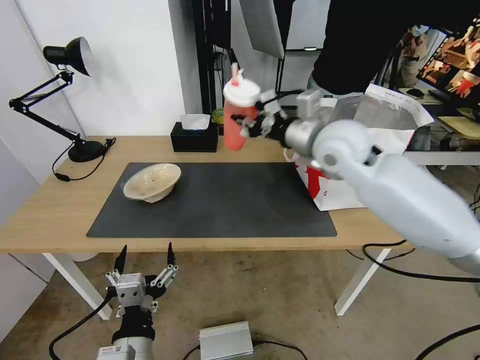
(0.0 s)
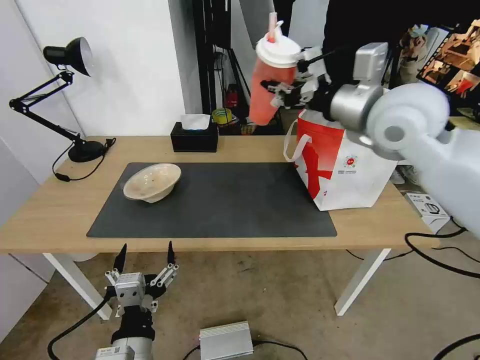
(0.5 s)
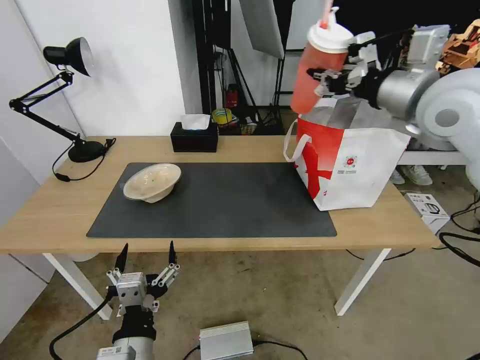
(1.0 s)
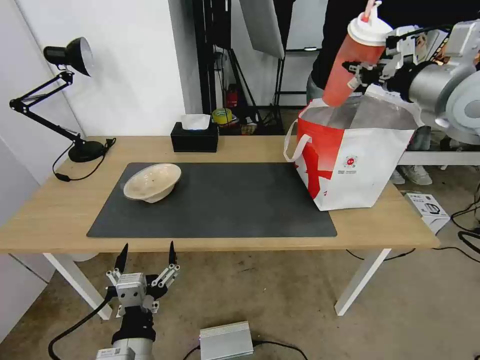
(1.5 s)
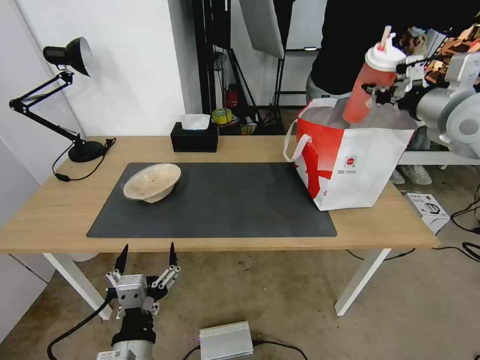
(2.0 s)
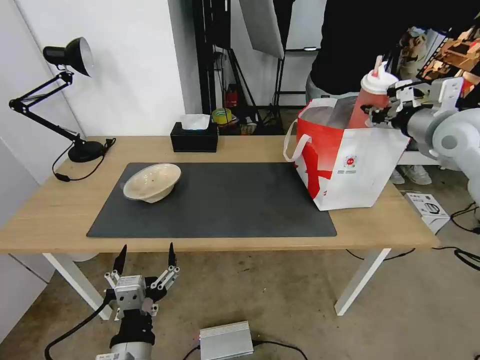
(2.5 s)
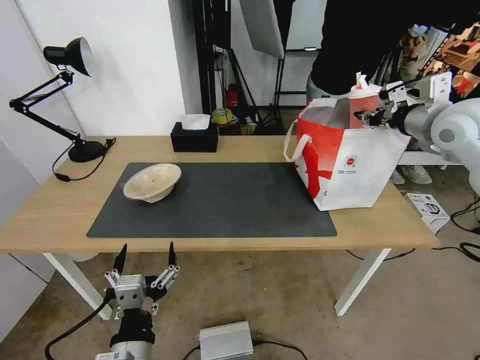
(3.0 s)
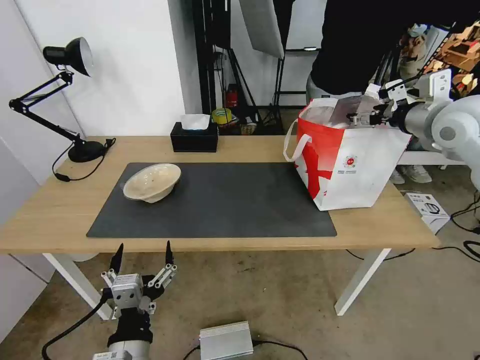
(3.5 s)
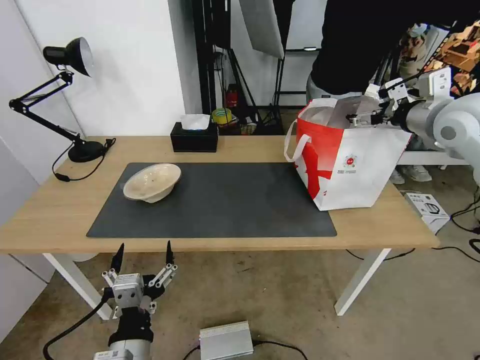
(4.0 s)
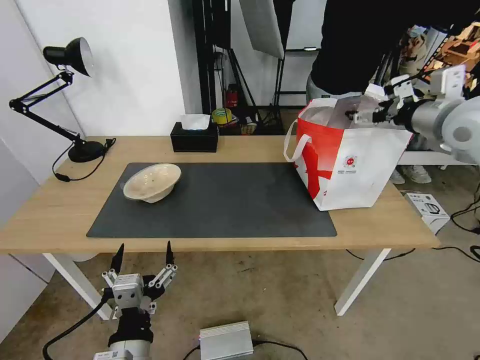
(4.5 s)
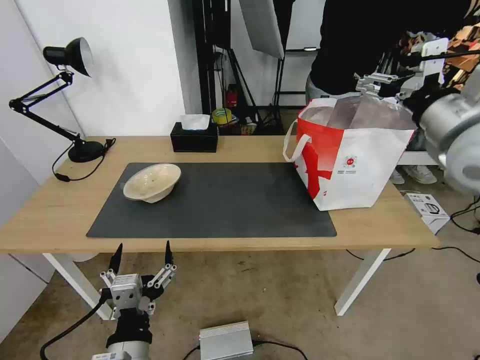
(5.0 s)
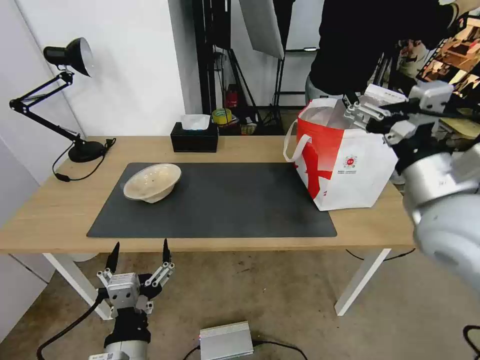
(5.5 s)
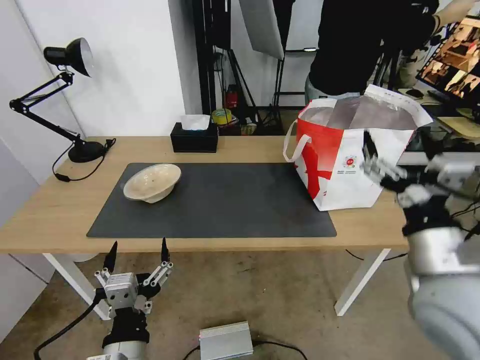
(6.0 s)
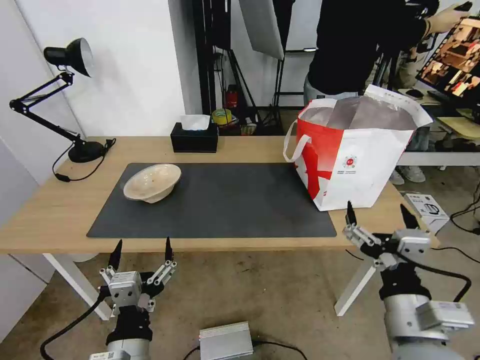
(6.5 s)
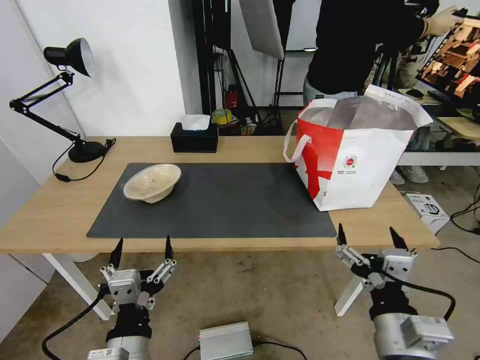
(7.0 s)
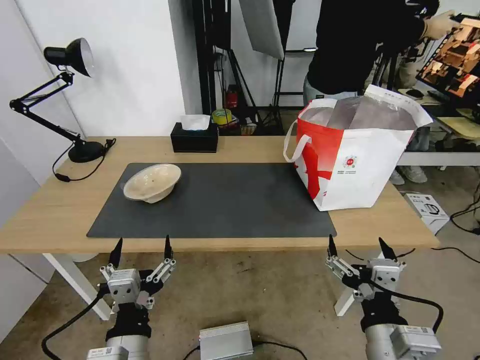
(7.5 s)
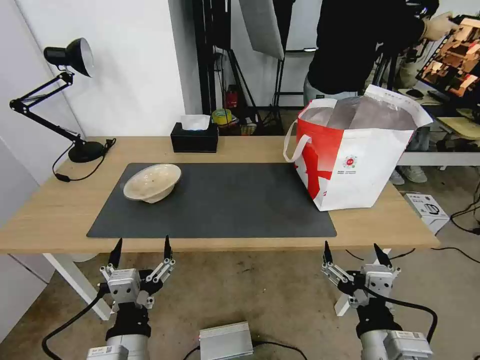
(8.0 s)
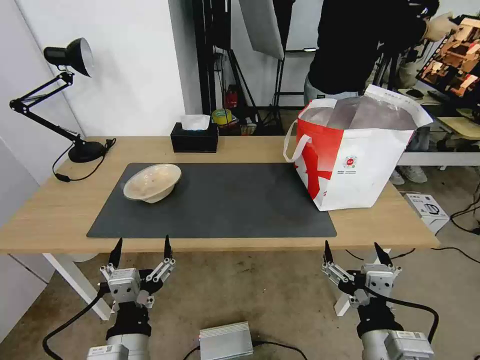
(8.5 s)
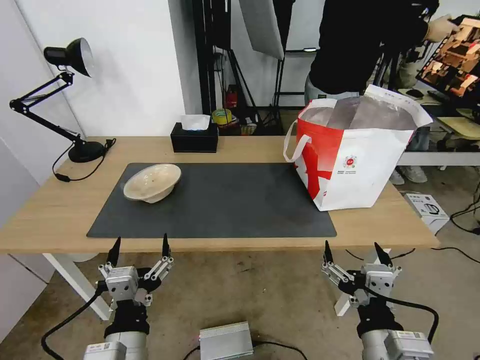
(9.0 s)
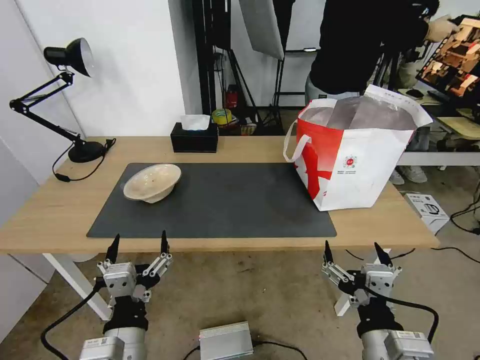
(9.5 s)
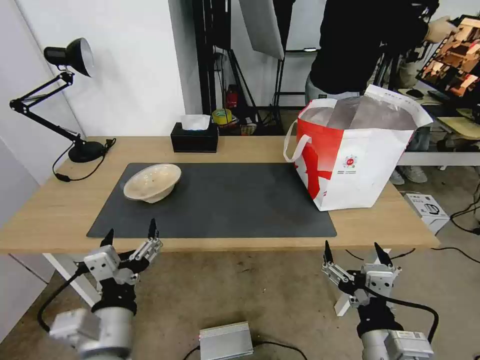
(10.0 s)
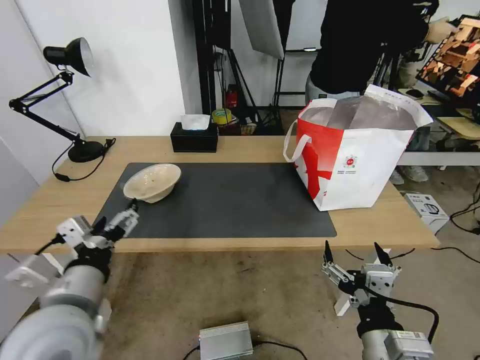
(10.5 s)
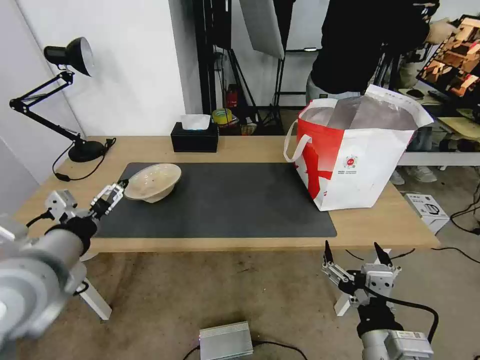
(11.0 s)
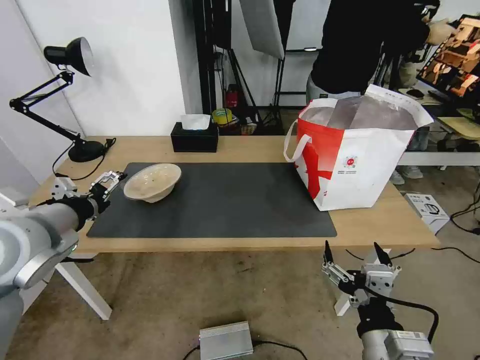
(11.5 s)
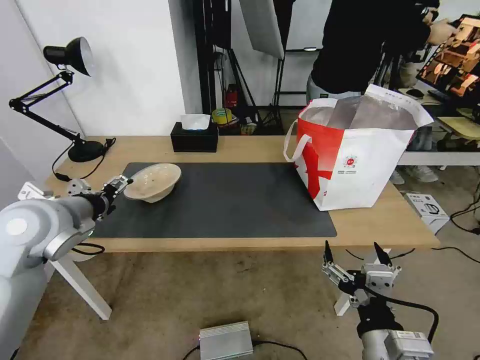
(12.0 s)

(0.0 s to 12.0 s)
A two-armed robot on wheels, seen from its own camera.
Task of the whole recording: Pick up the trash from the table and place it into the takeout bag.
0.0 s - 2.0 s: The right gripper heads to the right, covering some 20 cm.
2.0 s - 4.0 s: The right gripper opens.
4.0 s - 6.0 s: The right gripper travels backward, downward and to the left by approximately 30 cm.
6.0 s - 8.0 s: The right gripper moves backward, downward and to the left, some 15 cm.
8.0 s - 10.0 s: The left gripper moves about 5 cm.
10.0 s - 12.0 s: The left gripper goes approximately 25 cm forward, to the left and upward.

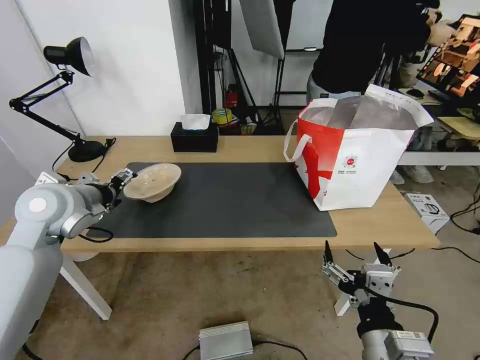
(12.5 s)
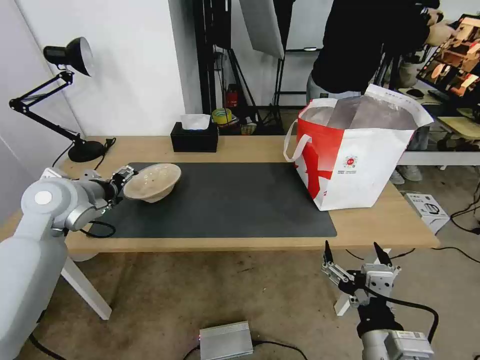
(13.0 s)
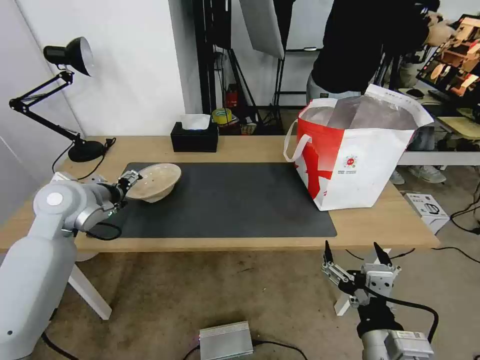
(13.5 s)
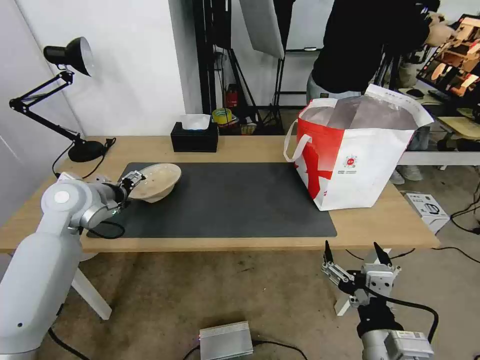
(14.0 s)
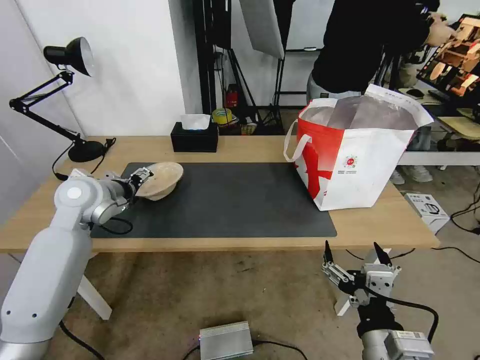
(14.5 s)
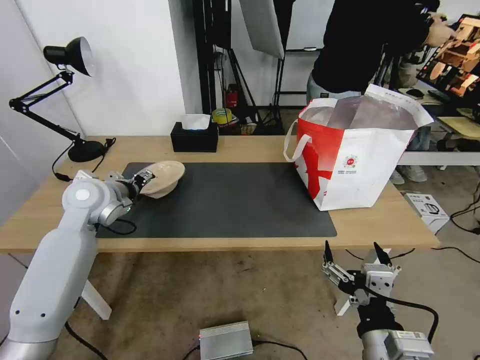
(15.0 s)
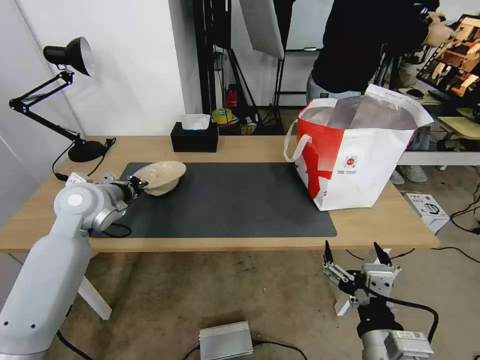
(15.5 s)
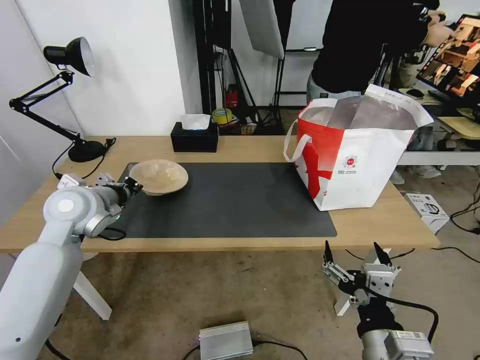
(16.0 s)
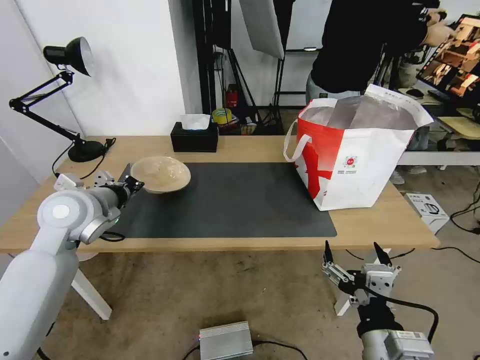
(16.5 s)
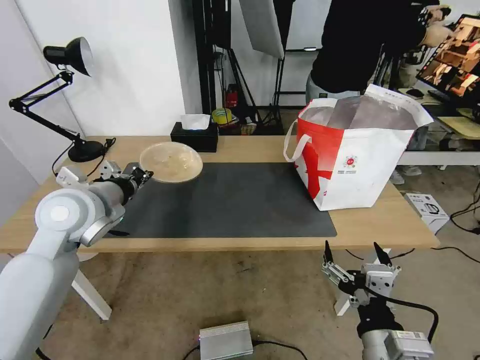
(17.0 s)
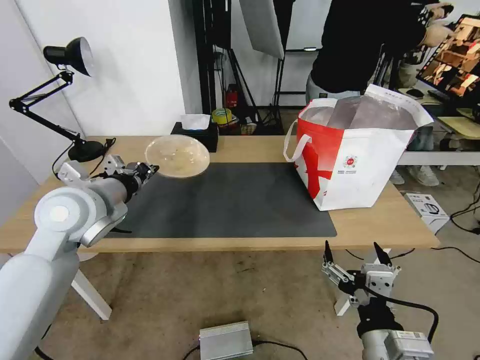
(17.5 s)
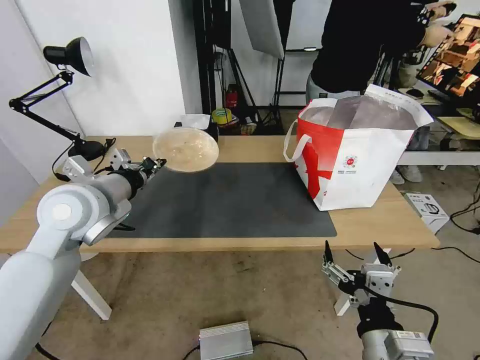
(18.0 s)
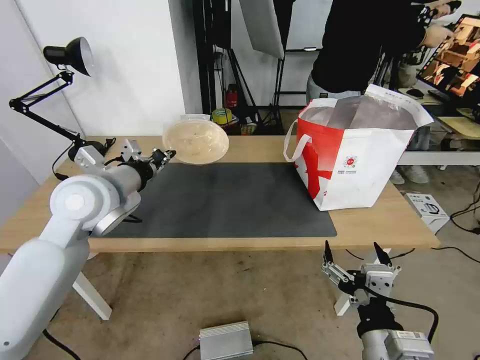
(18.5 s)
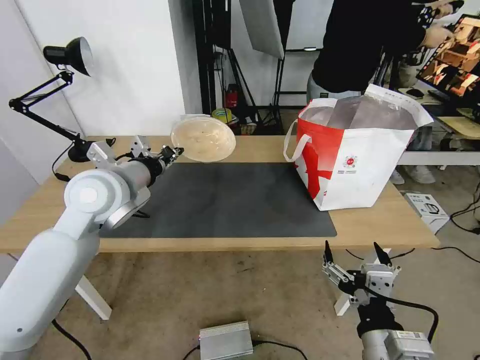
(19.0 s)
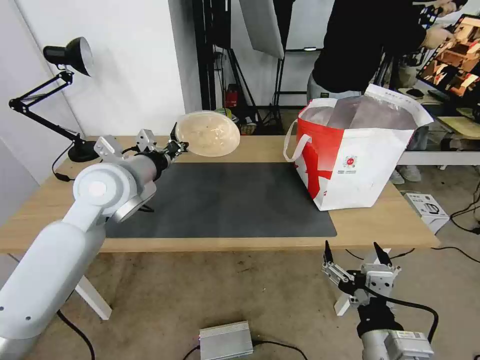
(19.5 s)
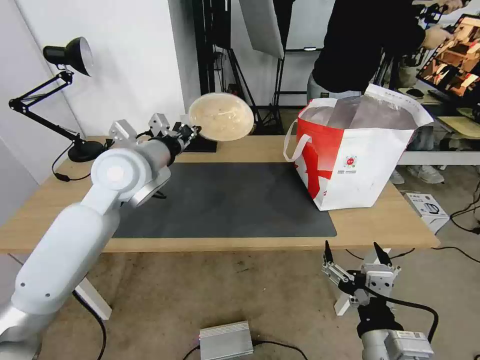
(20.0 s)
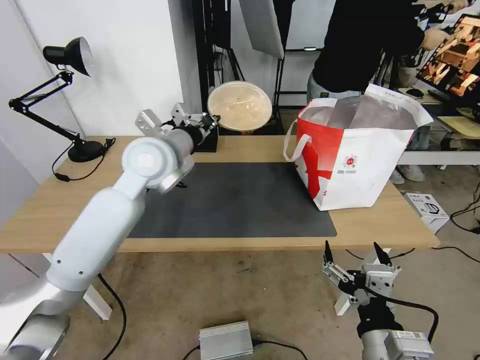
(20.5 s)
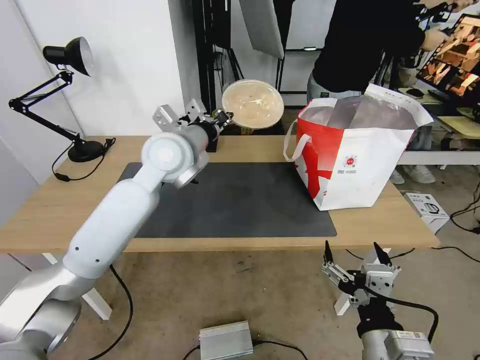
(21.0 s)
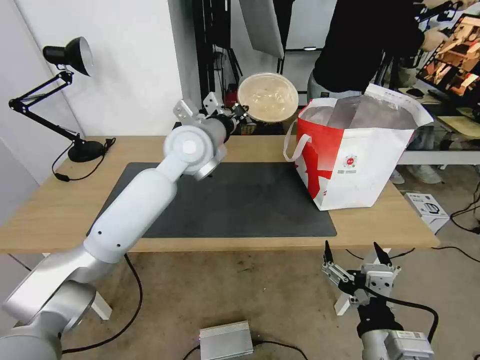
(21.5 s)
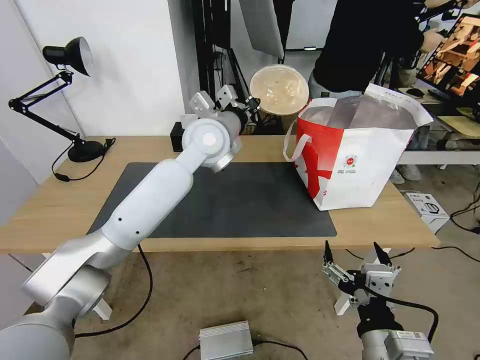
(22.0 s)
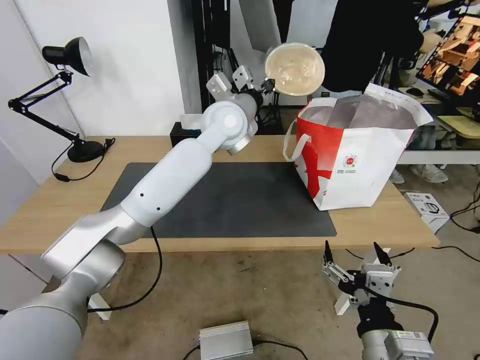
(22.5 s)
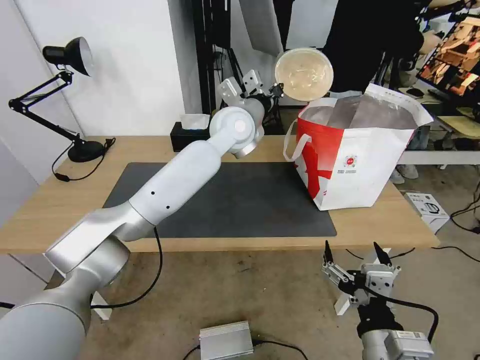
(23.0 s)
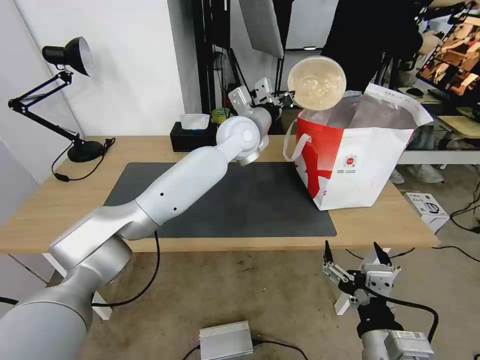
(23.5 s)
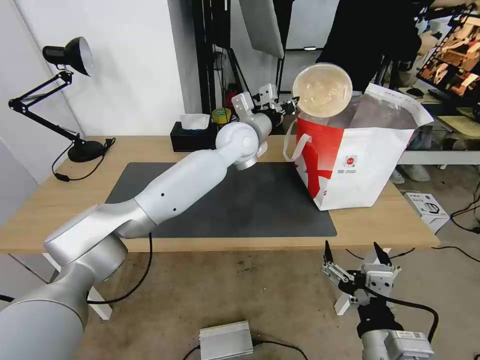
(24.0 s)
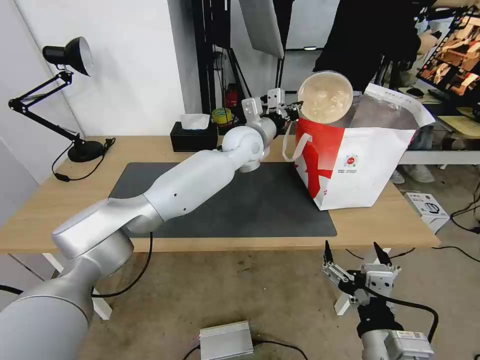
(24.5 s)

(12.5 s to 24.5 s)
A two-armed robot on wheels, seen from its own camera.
Task of the whole recording: Pick up the trash from the table and place it into the takeout bag.
12.5 s - 14.5 s: The left gripper shifts some 5 cm forward.
14.5 s - 16.5 s: The left gripper moves backward, about 5 cm, and closes up.
16.5 s - 18.5 s: The left gripper moves to the right, approximately 5 cm.
18.5 s - 20.5 s: The left gripper heads to the right and forward, covering some 10 cm.
20.5 s - 22.5 s: The left gripper moves to the right and forward, about 15 cm.
22.5 s - 24.5 s: The left gripper travels downward by roughly 5 cm.

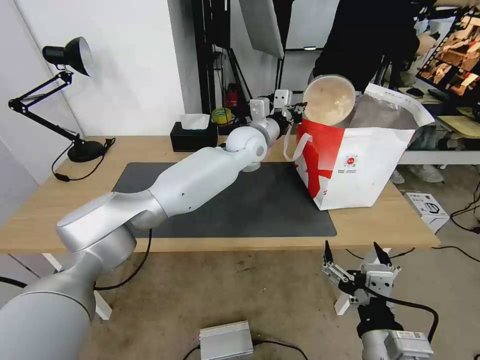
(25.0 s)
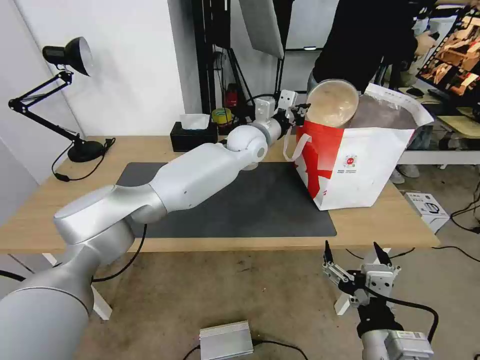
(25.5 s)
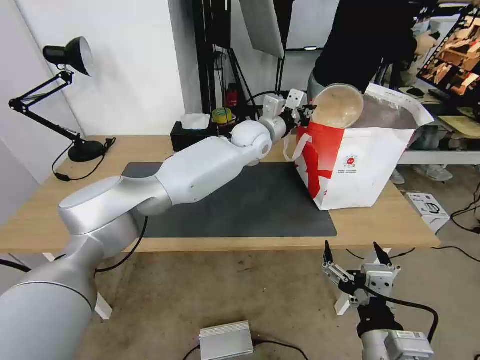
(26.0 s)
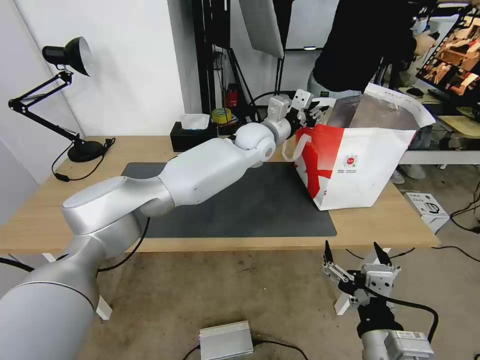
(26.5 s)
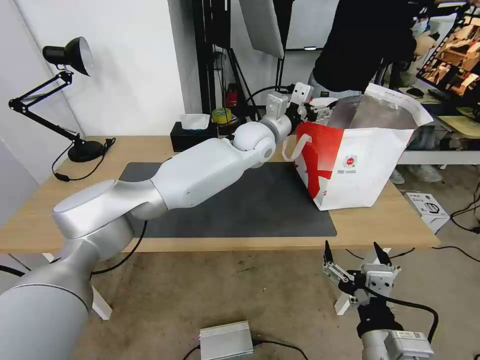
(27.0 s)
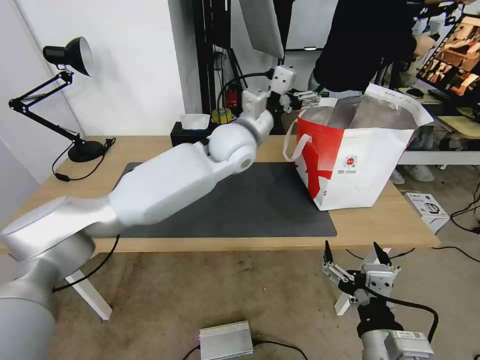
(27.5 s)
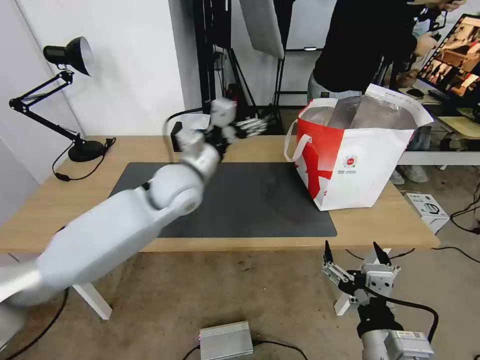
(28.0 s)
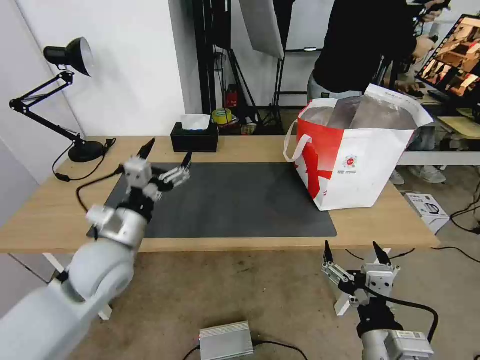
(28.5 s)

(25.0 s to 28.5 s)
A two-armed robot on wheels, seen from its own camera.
Task of the whole recording: Pick up the trash from the table and place it into the takeout bag.
25.0 s - 27.0 s: The left gripper opens its fingers.
27.0 s - 28.5 s: The left gripper shifts roughly 40 cm to the left and backward.
